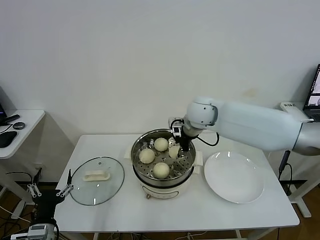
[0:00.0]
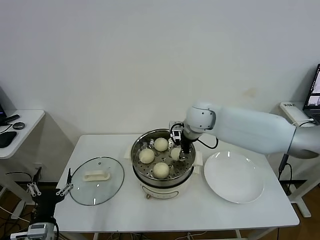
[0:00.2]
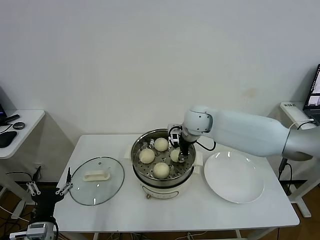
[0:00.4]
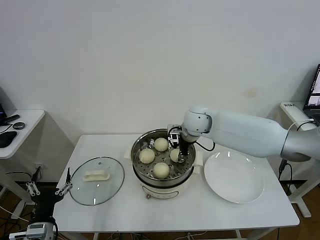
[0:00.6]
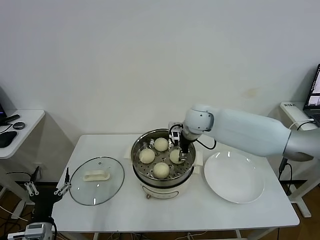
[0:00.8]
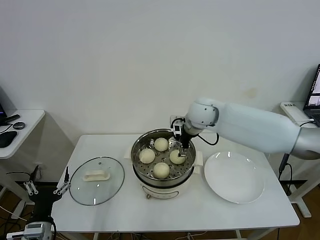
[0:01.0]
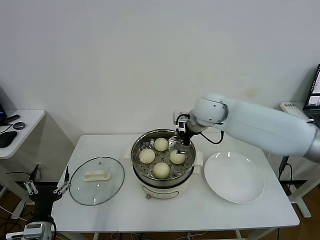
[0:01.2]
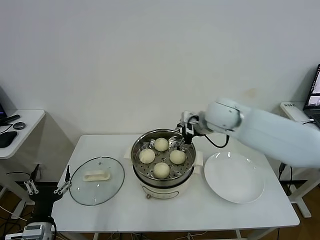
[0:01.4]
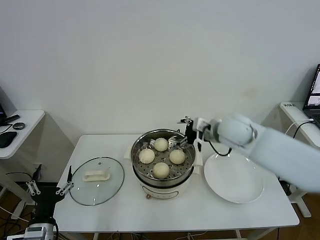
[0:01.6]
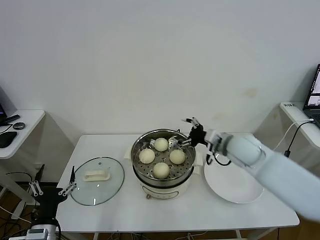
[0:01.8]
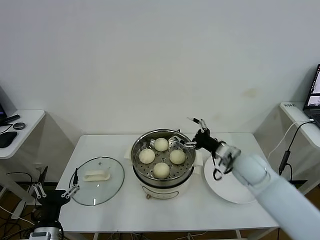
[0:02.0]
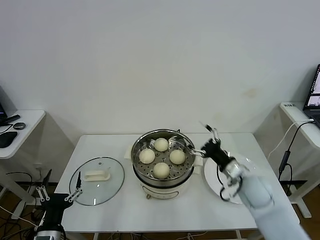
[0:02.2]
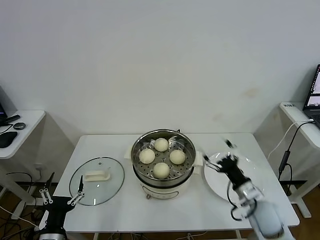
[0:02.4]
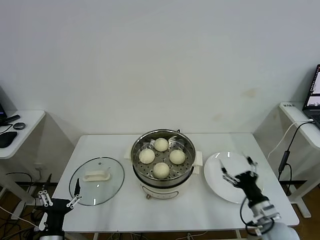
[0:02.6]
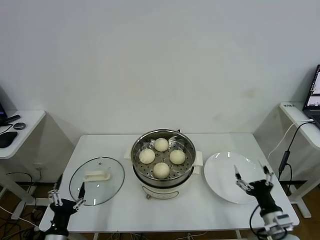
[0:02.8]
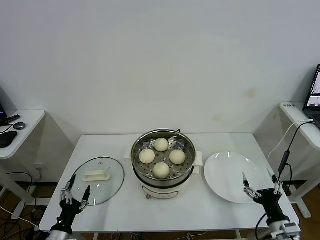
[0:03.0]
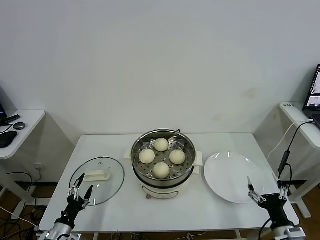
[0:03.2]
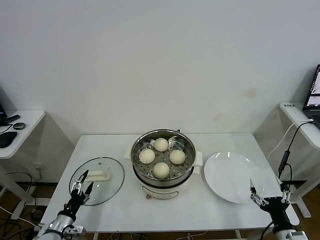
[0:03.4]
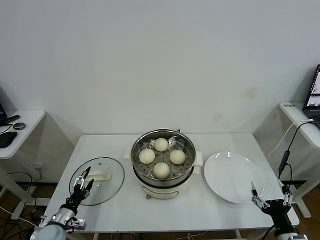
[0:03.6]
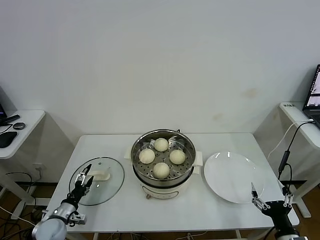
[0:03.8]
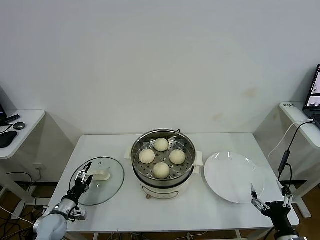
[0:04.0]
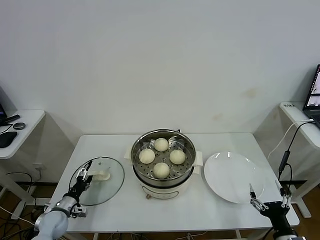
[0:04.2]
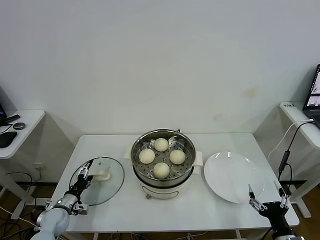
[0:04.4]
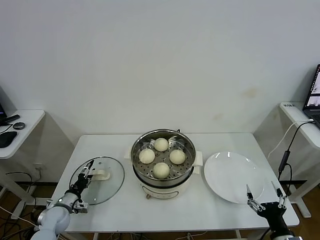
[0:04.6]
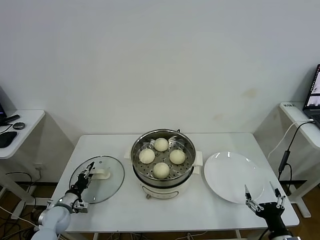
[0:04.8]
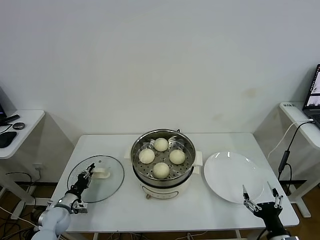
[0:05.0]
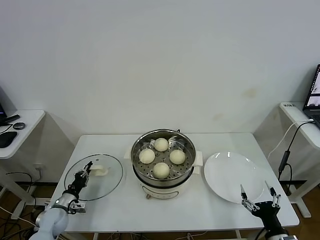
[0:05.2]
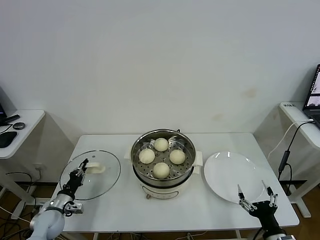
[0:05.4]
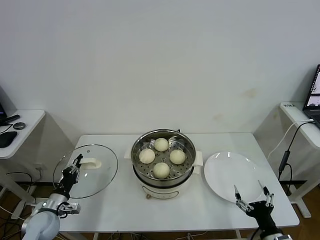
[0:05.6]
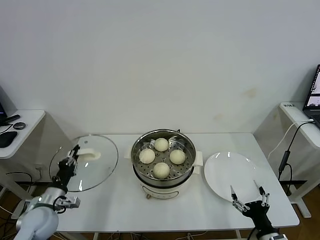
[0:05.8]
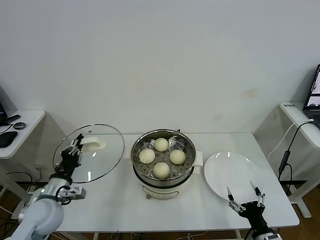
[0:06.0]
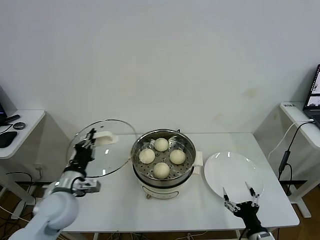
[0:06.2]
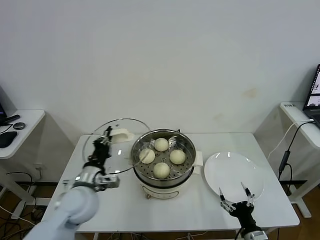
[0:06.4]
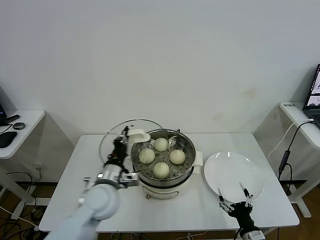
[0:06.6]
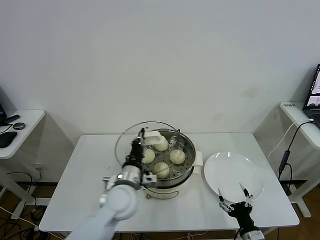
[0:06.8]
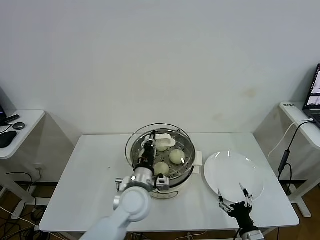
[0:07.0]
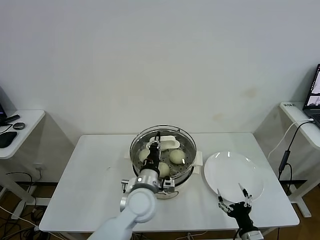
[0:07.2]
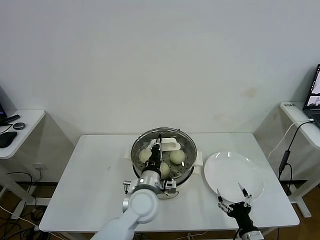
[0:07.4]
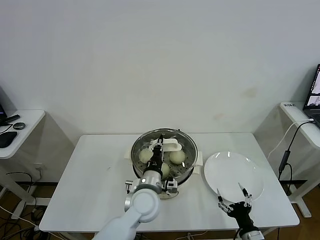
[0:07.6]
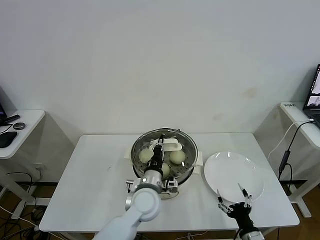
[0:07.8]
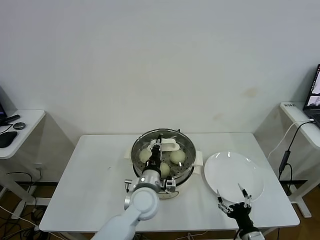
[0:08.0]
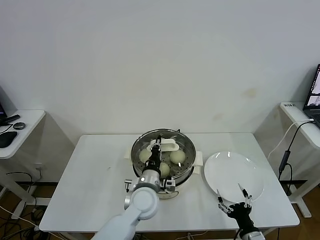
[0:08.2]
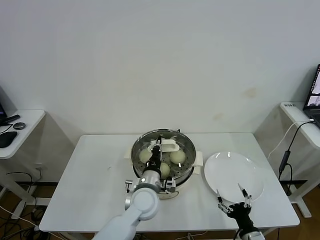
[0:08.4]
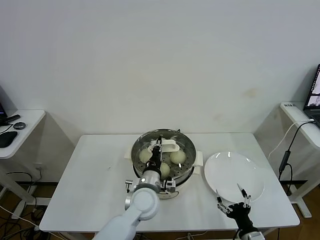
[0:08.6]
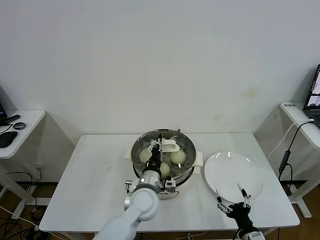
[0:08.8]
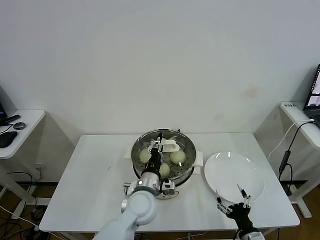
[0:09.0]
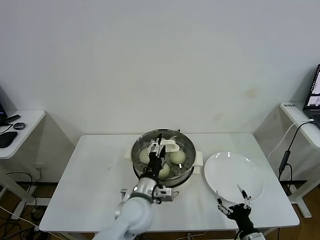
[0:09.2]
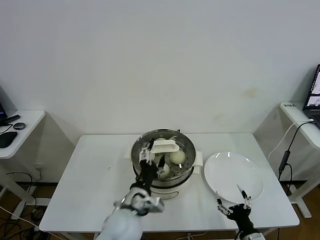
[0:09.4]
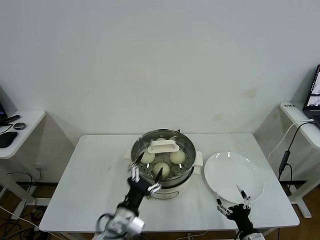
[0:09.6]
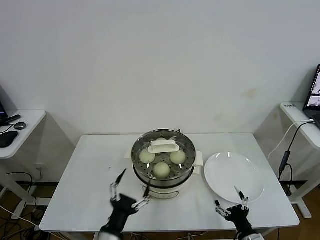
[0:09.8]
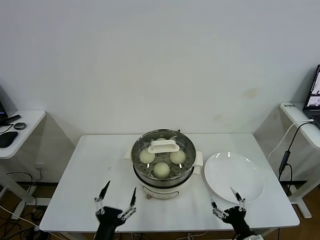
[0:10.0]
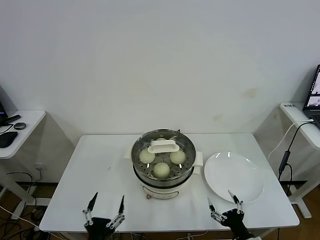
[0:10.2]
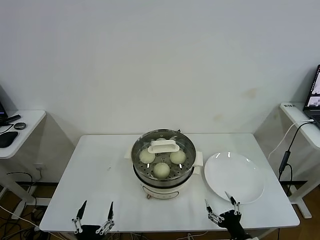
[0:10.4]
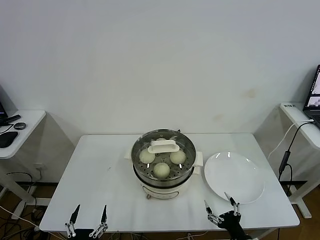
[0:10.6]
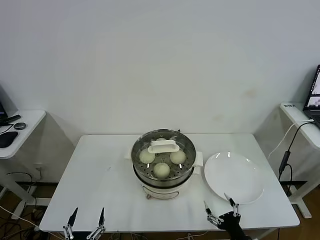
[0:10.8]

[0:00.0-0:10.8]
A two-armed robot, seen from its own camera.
Task of the whole recording: take steamed baozi put them in steamer.
Step, 0:01.2 to 0:05.2: Grasp the pot lid with left gripper.
Step, 0:05.4 to 0:09.0: Place the pot lid on the steamer with left gripper.
0:00.0 to 0:01.6: The right gripper shifts some 10 cm to the right and backward, and opens.
0:01.6 to 0:03.0: The left gripper is displaced downward by roughly 10 cm. The right gripper goes approximately 40 cm backward, downward and to the right.
0:03.0 to 0:04.6: The left gripper travels forward by some 15 cm.
0:04.6 to 0:06.2: The right gripper changes place by some 5 cm; the left gripper heads upward and to the right, covering about 25 cm, and closes its fingers.
0:06.2 to 0:07.8: The left gripper is displaced to the right by approximately 25 cm.
0:07.8 to 0:09.2: The left gripper opens.
0:09.2 to 0:10.8: The left gripper travels backward and to the left by approximately 30 cm, and opens its fingers.
